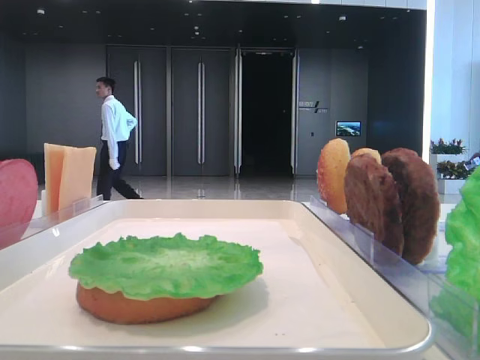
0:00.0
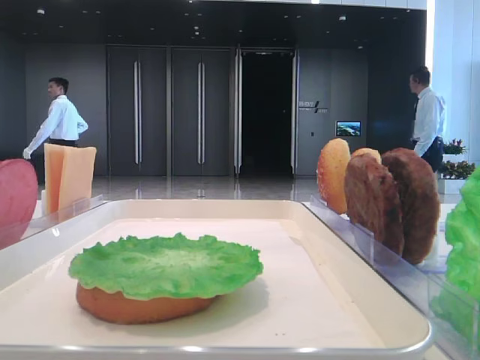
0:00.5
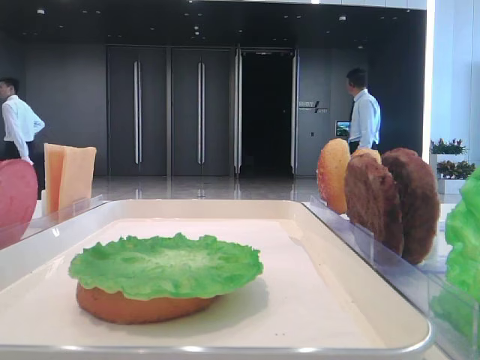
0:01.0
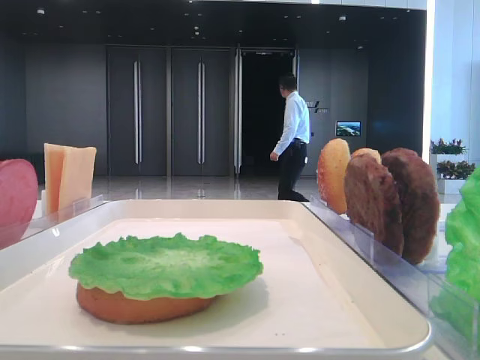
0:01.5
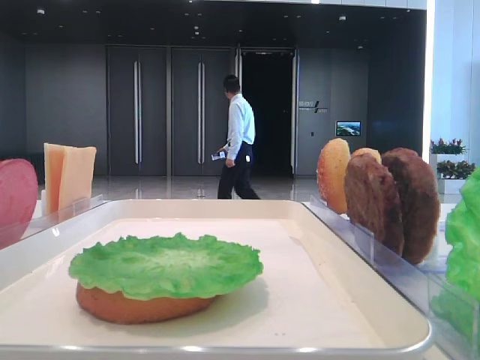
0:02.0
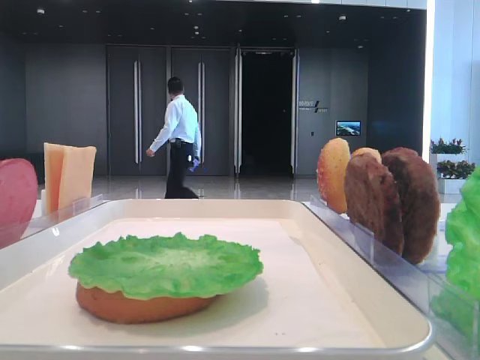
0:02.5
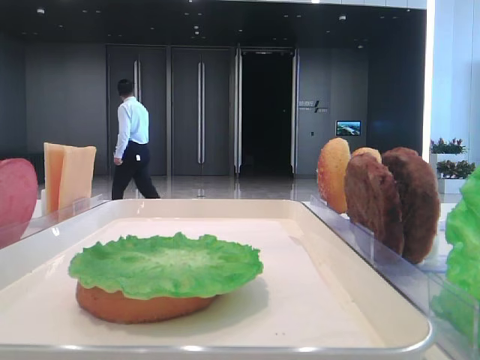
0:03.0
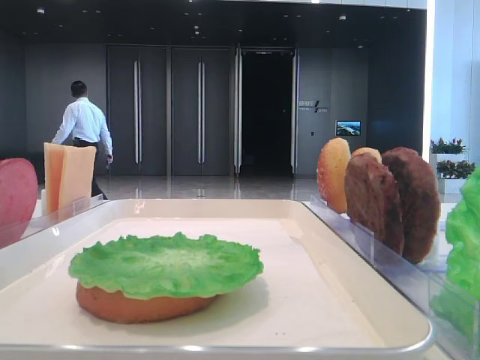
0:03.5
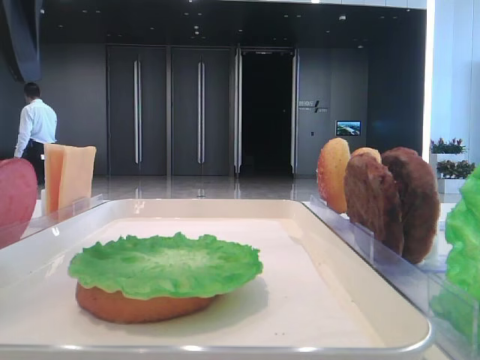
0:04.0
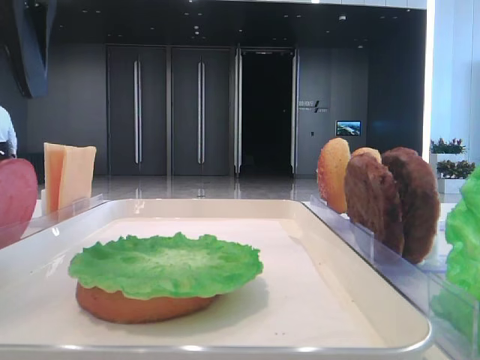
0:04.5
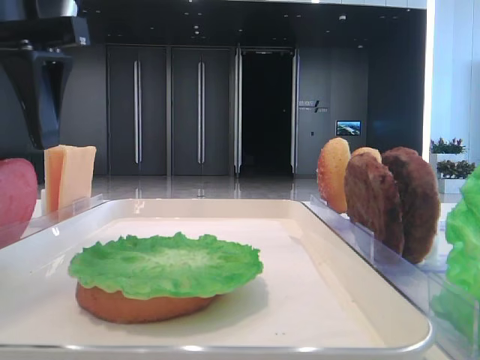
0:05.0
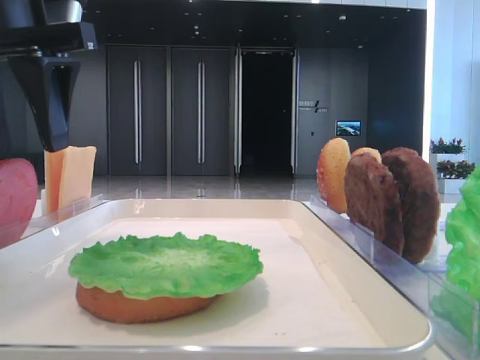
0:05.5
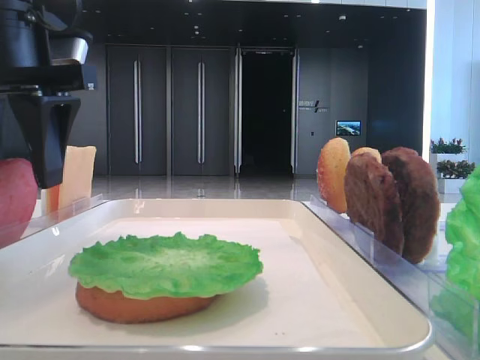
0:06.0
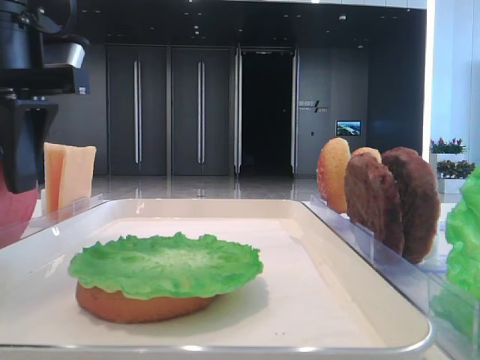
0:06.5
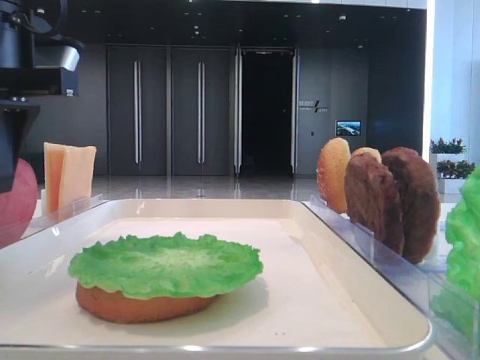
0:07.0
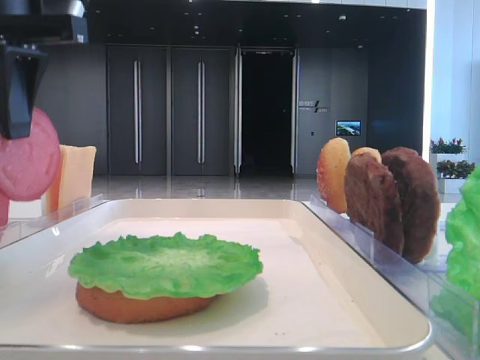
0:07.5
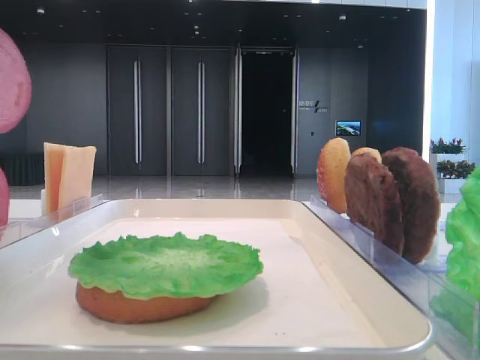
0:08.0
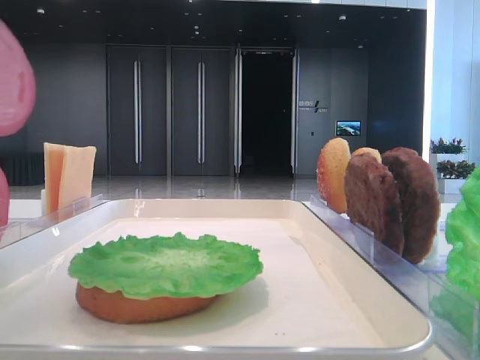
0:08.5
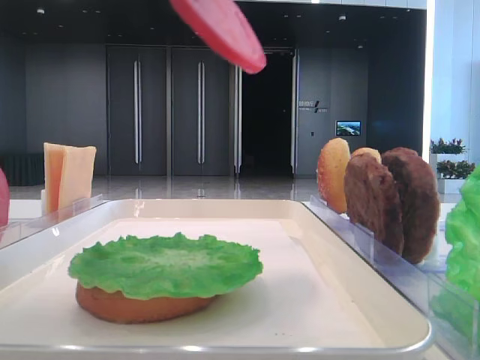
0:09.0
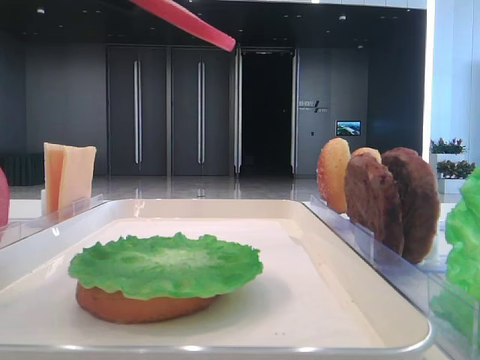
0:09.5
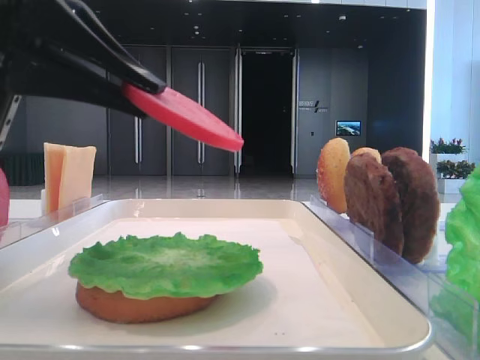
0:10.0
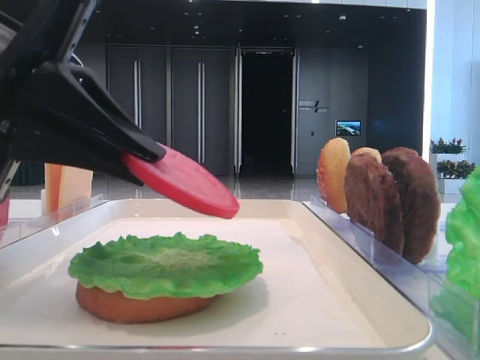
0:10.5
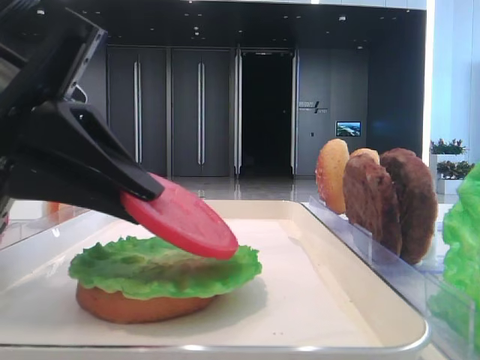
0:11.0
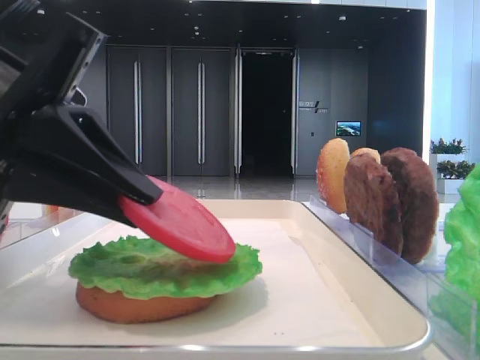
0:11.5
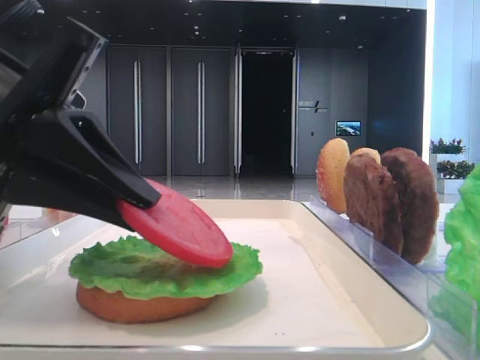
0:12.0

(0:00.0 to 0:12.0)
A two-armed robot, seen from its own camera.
Step, 0:00.0 - 0:06.5: Pick up the tomato slice with the left hand.
0:02.0 - 0:04.0: The left gripper travels forward and to the right by approximately 25 cm.
0:04.0 - 0:06.0: The left gripper shifts roughly 5 cm downward.
0:06.0 - 0:08.0: The left gripper moves upward, about 10 cm, and closes its fingers.
0:08.0 - 0:10.0: The left gripper travels downward by about 10 cm.
0:10.0 - 0:12.0: The left gripper shifts about 5 cm downward.

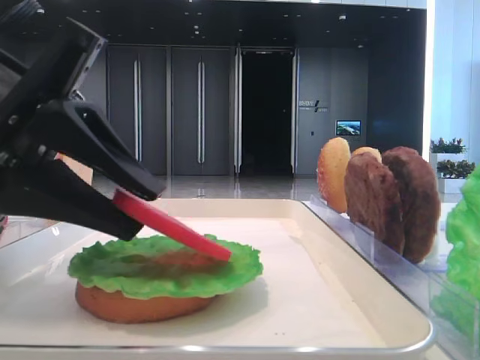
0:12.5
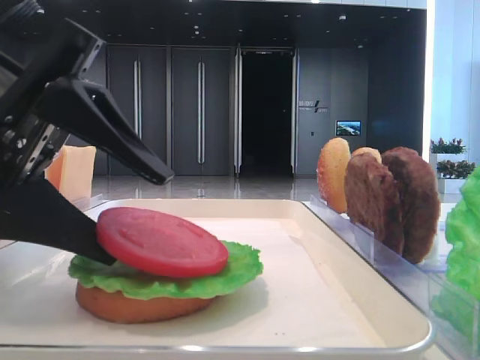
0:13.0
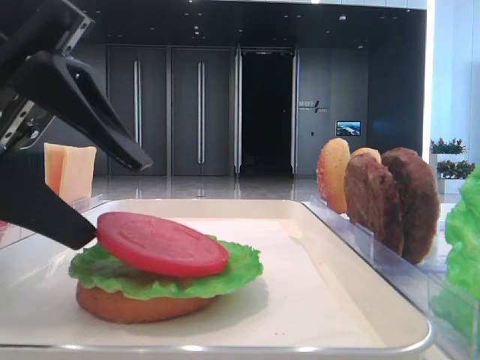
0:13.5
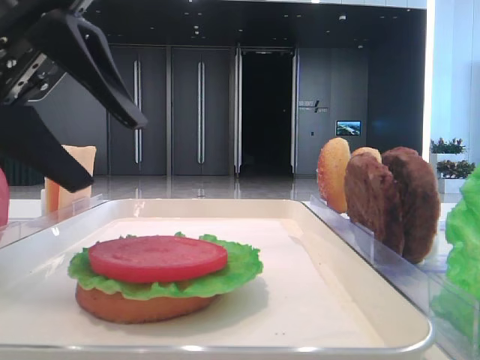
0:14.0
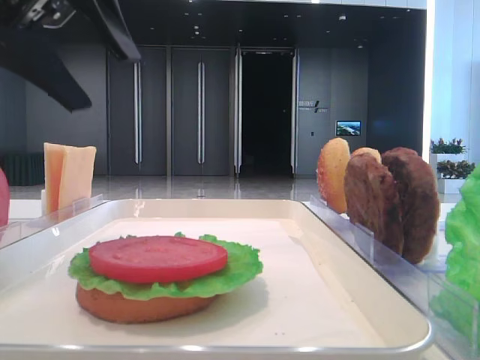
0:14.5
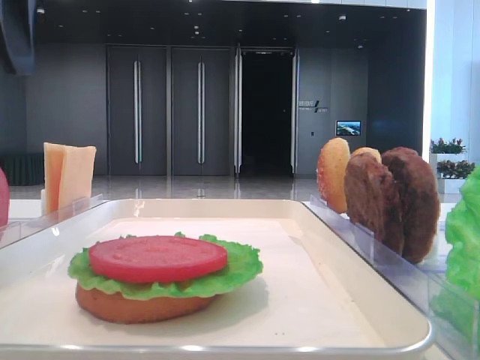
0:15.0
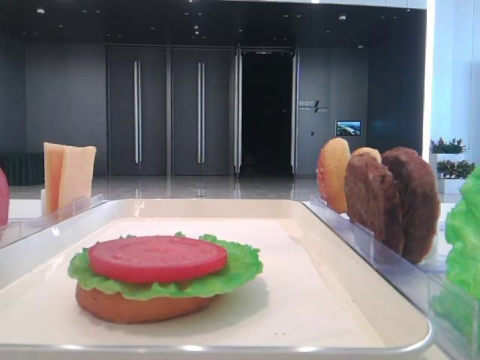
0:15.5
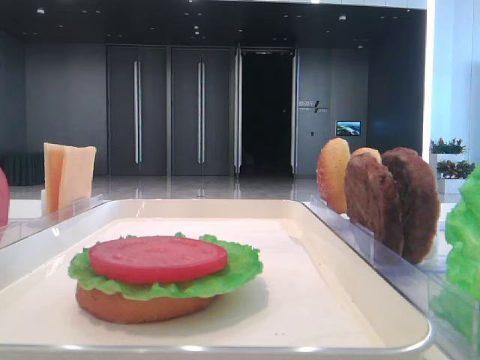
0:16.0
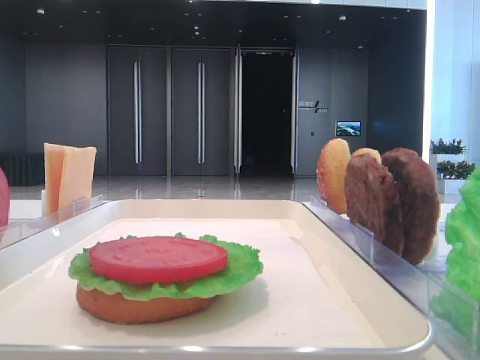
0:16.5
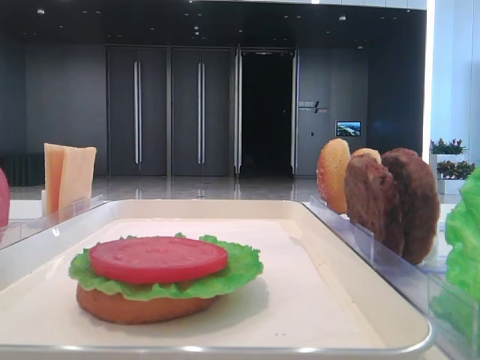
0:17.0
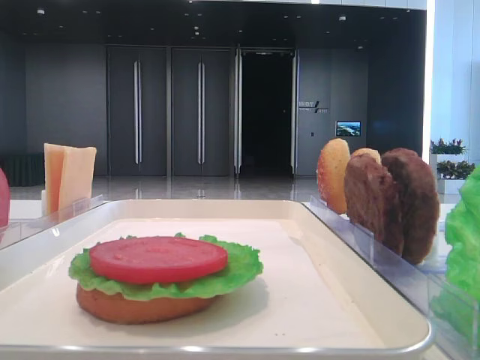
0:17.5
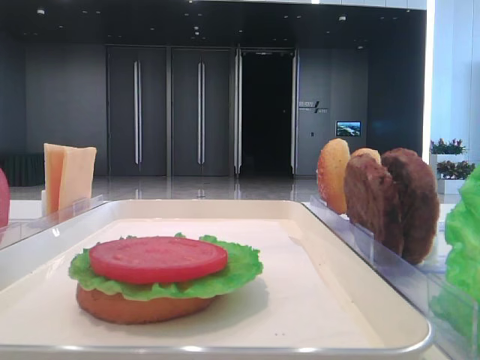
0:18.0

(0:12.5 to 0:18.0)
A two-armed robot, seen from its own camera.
0:12.5 - 0:14.5: The left gripper shifts roughly 10 cm upward, and opens its fingers.
0:14.5 - 0:16.0: The left gripper moves to the left and upward, roughly 15 cm.

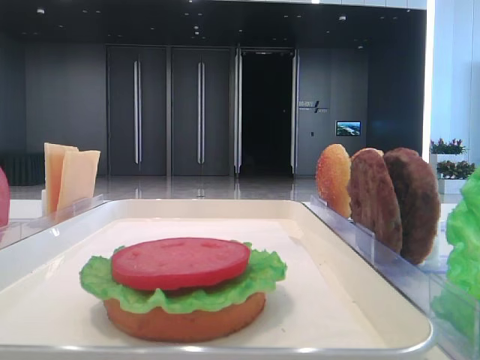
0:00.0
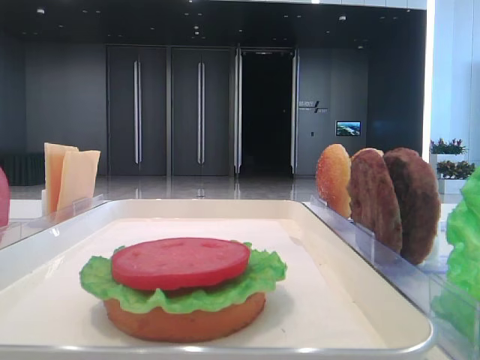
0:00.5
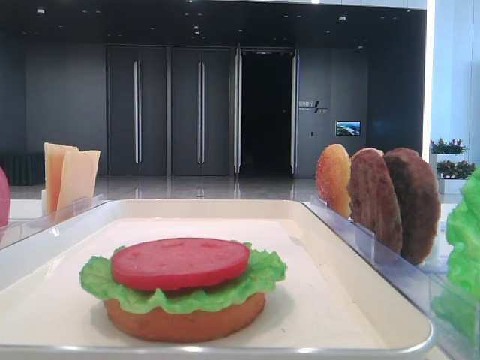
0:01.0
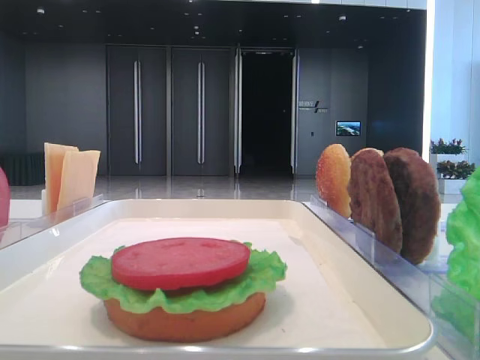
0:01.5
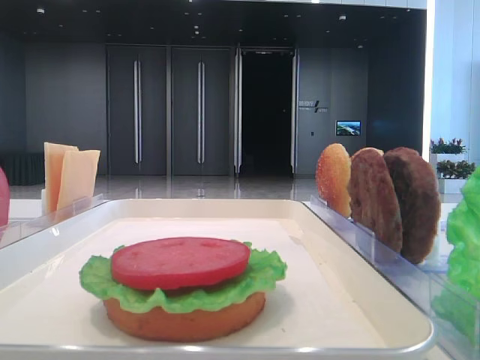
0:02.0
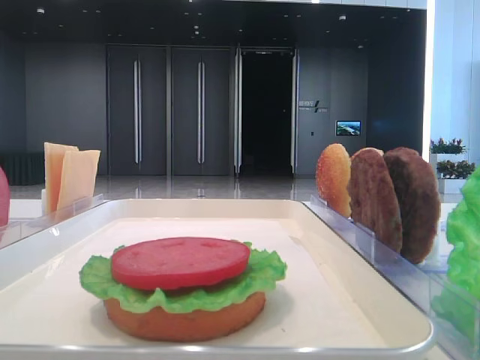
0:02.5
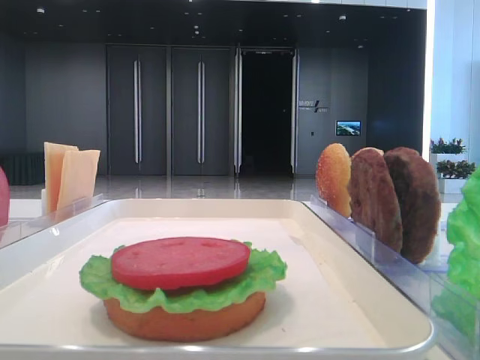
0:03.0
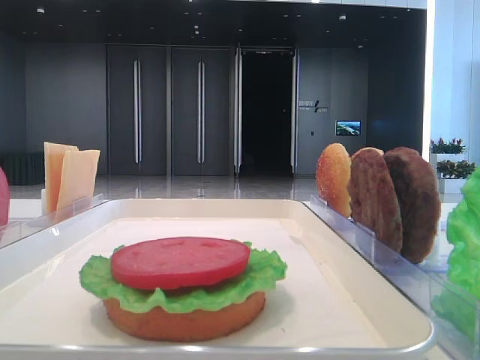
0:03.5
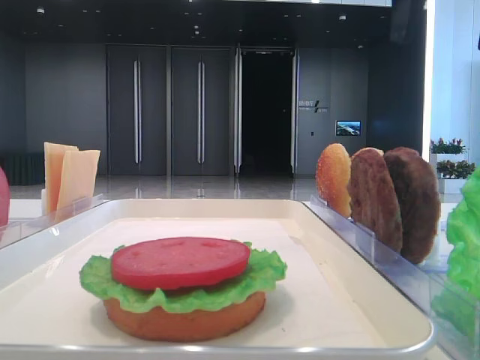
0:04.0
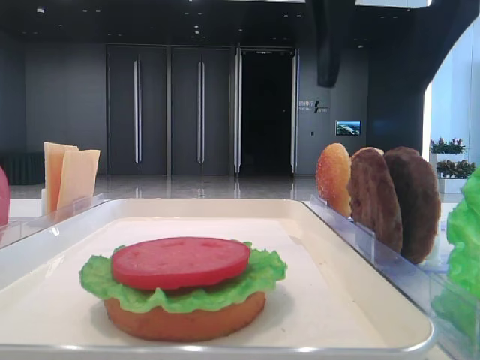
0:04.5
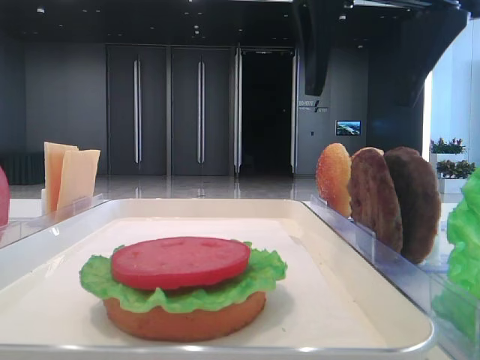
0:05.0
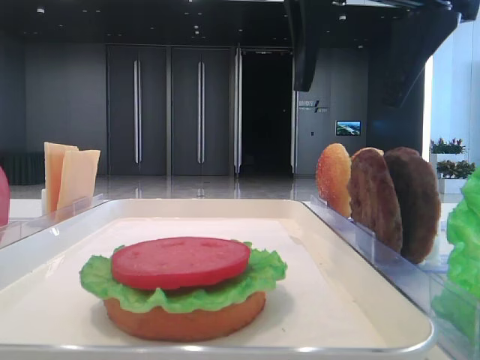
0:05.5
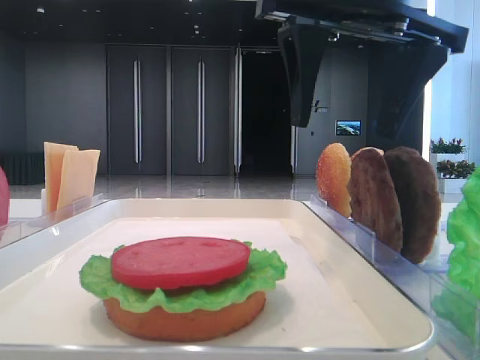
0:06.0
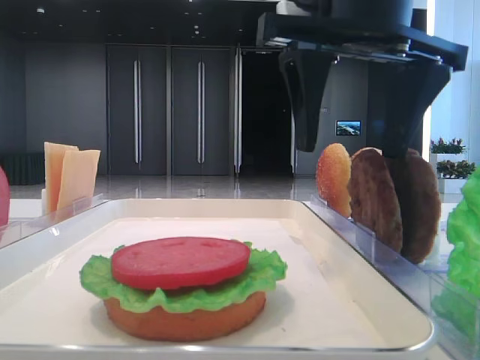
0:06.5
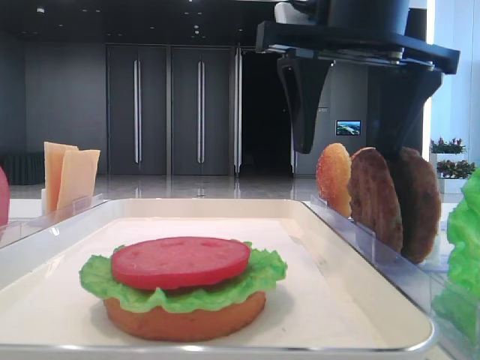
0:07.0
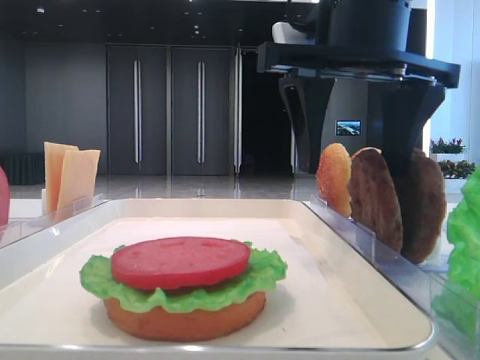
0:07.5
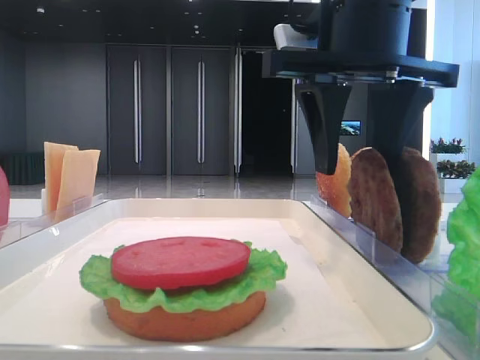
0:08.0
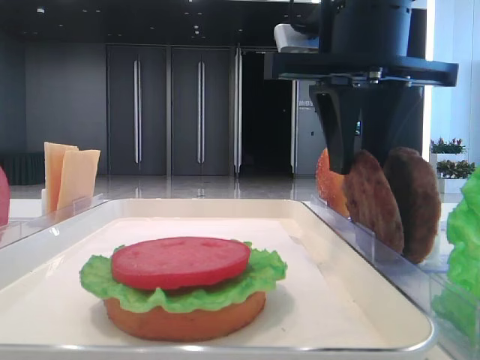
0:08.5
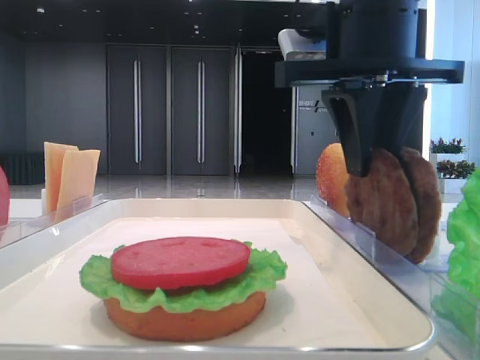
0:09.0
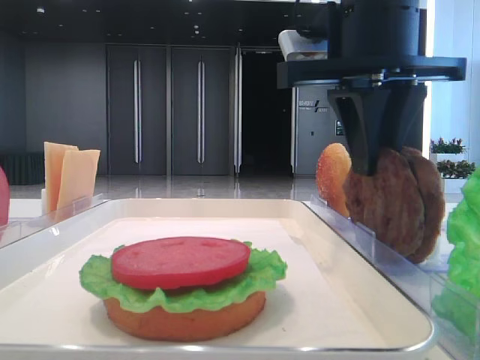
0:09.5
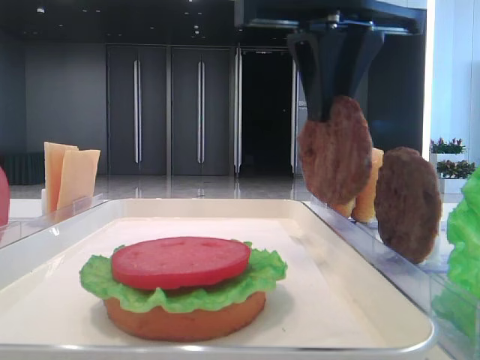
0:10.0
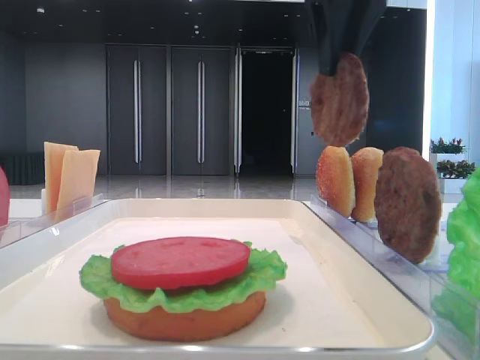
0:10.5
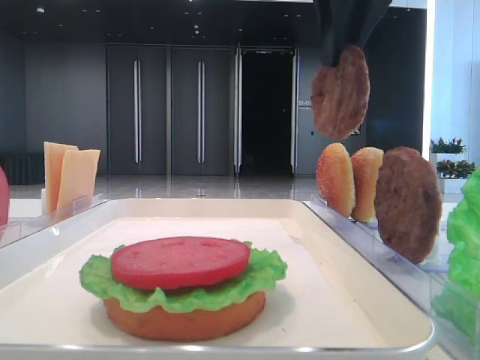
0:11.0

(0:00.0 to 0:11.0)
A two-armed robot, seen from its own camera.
Step, 0:00.0 - 0:09.0: Grab the patty with the right hand.
0:03.5 - 0:05.5: The right gripper is displaced to the left by about 15 cm.
0:05.5 - 0:07.5: The right gripper goes approximately 5 cm downward.
0:07.5 - 0:09.0: The right gripper closes up.
0:09.0 - 0:11.0: The right gripper is displaced upward by about 10 cm.
